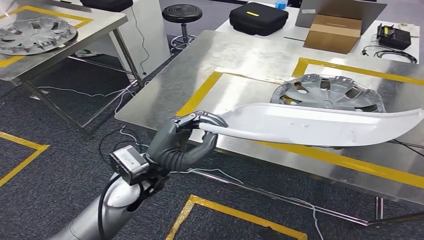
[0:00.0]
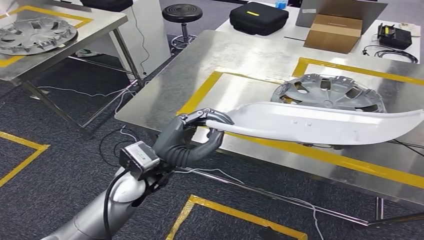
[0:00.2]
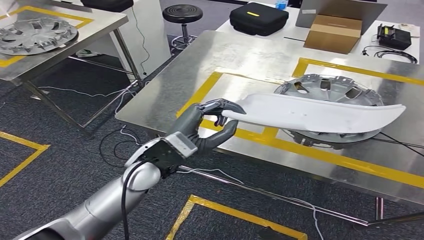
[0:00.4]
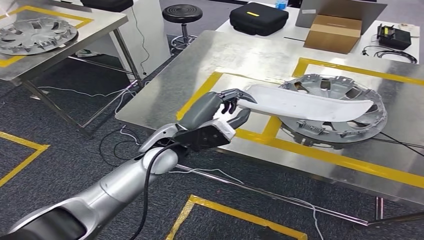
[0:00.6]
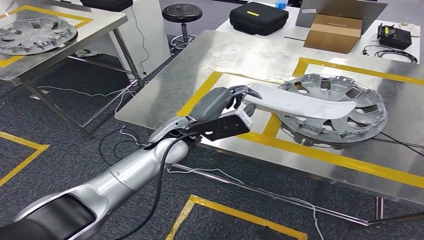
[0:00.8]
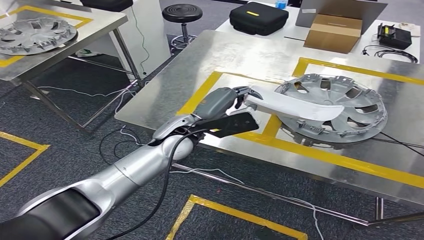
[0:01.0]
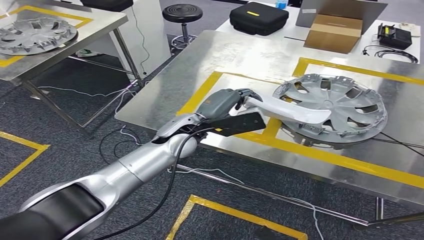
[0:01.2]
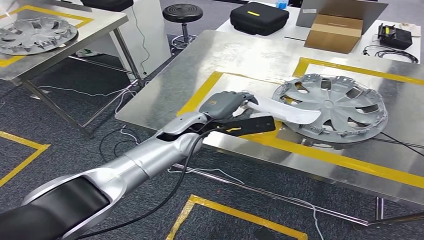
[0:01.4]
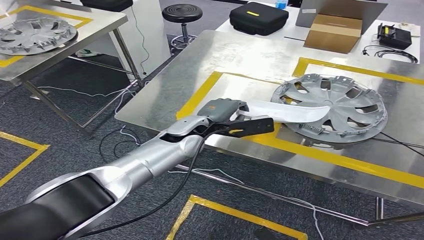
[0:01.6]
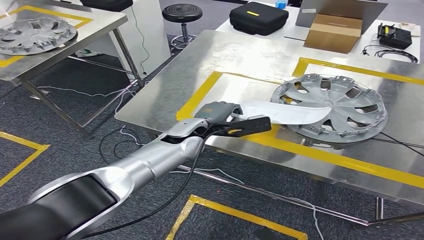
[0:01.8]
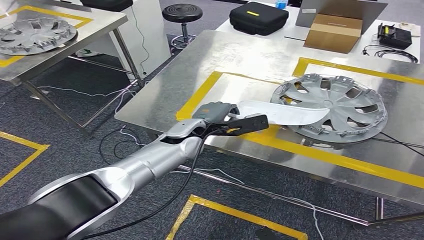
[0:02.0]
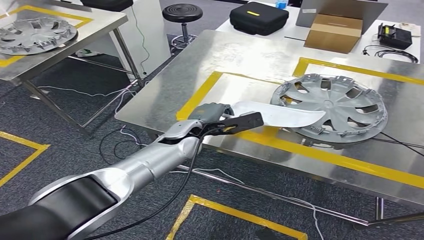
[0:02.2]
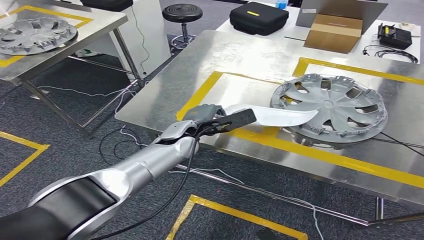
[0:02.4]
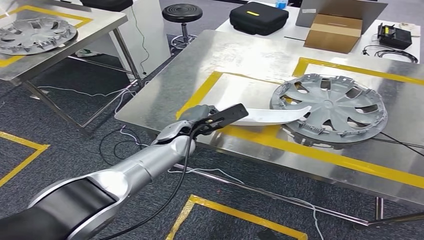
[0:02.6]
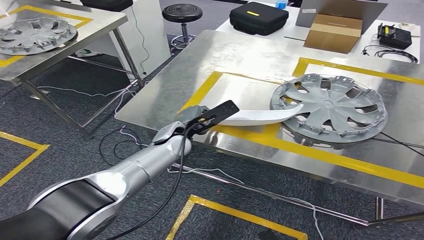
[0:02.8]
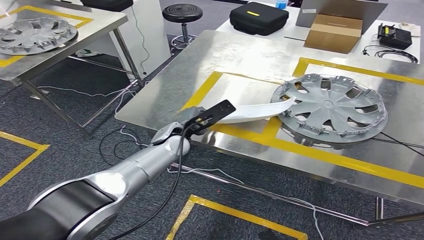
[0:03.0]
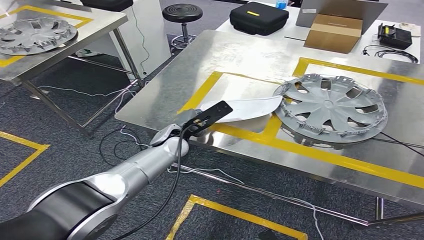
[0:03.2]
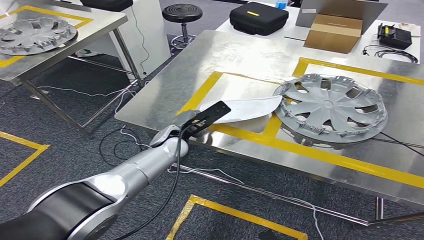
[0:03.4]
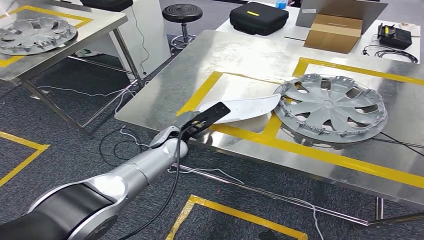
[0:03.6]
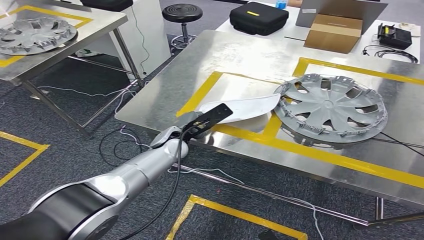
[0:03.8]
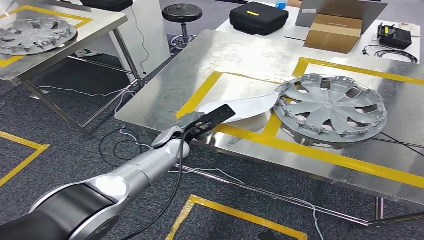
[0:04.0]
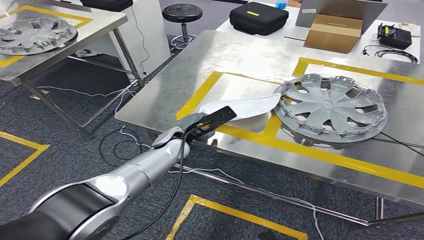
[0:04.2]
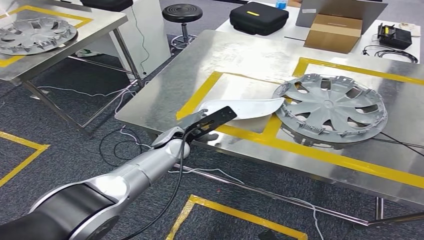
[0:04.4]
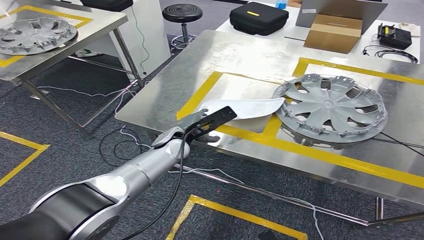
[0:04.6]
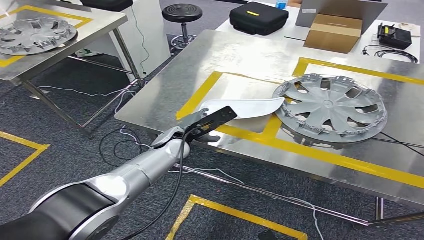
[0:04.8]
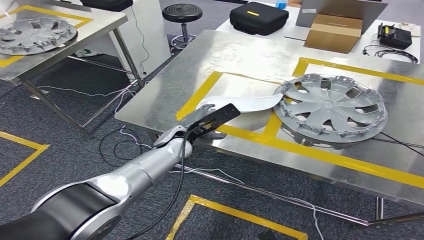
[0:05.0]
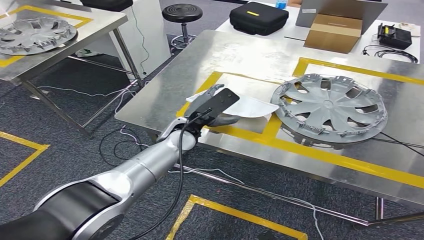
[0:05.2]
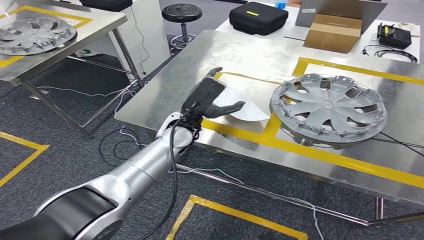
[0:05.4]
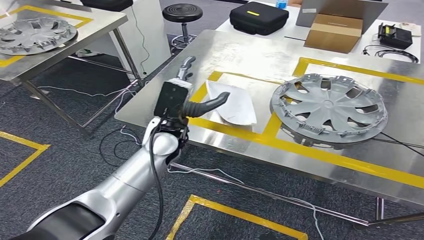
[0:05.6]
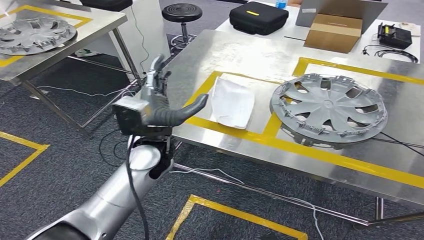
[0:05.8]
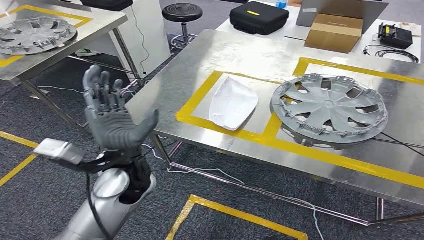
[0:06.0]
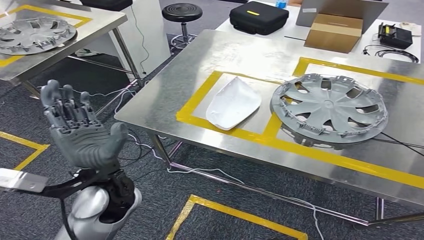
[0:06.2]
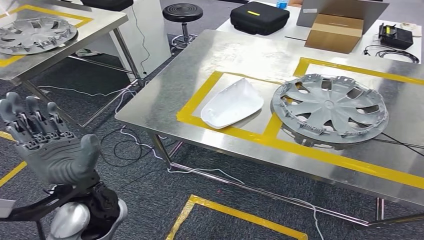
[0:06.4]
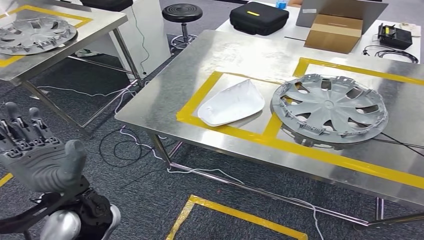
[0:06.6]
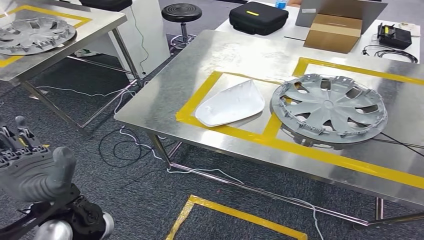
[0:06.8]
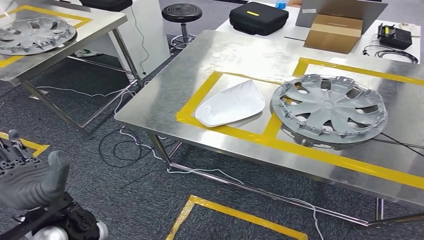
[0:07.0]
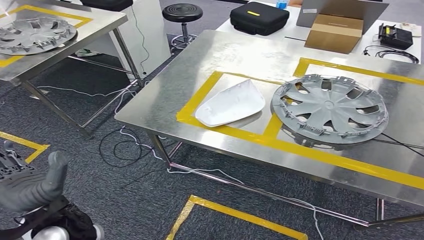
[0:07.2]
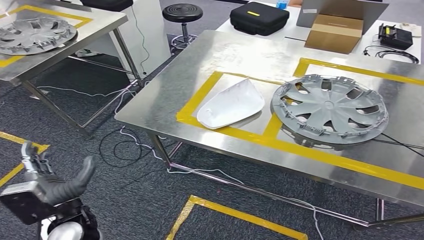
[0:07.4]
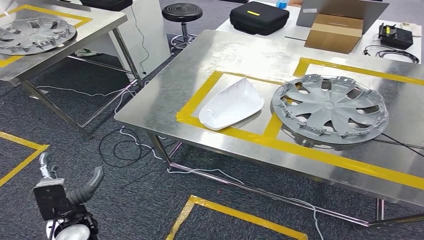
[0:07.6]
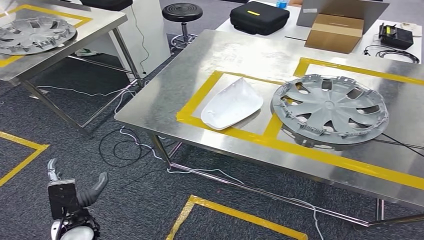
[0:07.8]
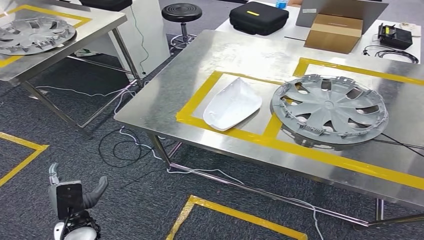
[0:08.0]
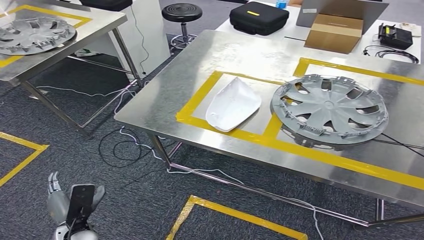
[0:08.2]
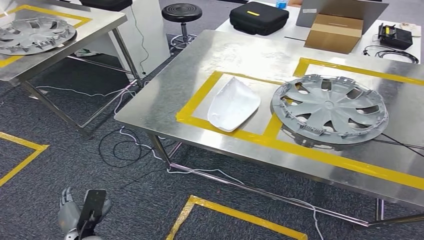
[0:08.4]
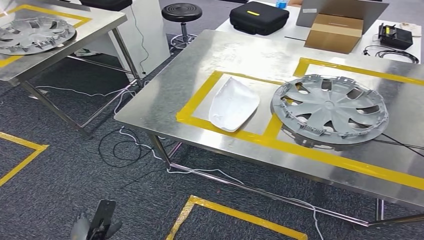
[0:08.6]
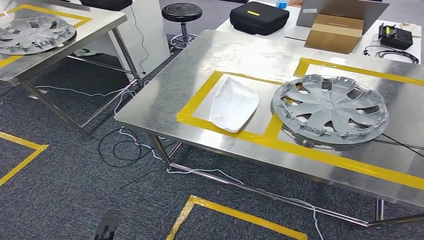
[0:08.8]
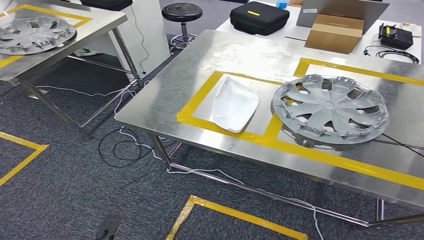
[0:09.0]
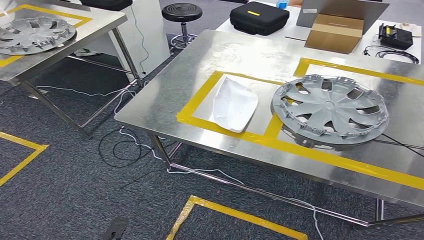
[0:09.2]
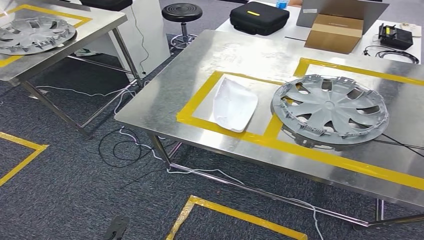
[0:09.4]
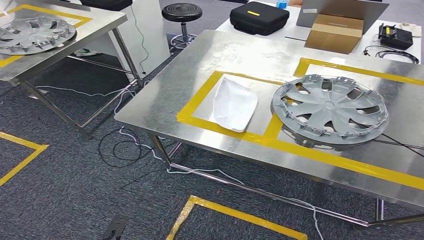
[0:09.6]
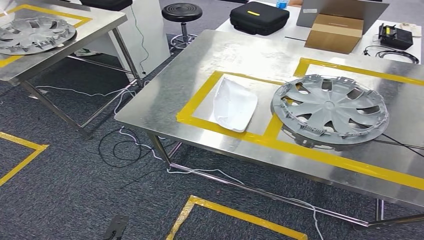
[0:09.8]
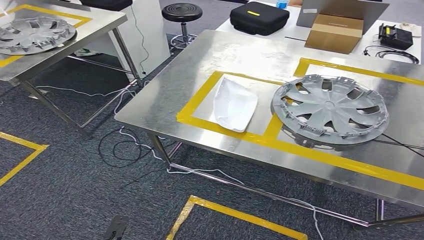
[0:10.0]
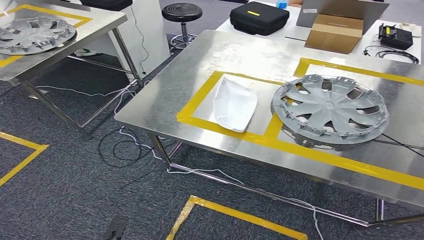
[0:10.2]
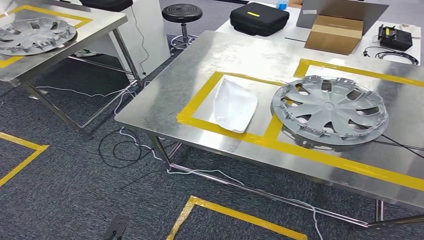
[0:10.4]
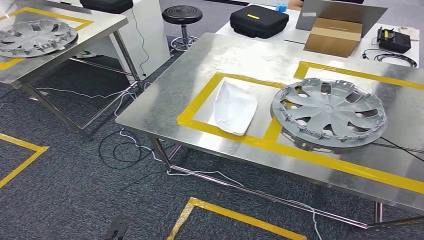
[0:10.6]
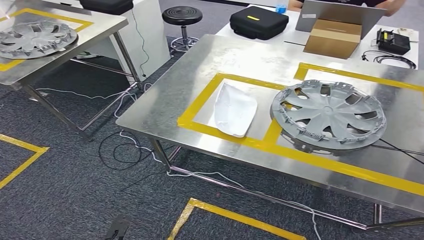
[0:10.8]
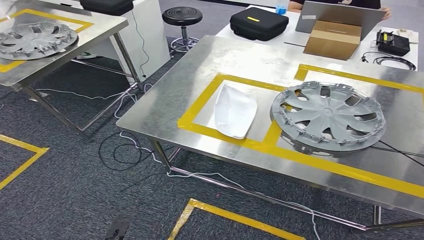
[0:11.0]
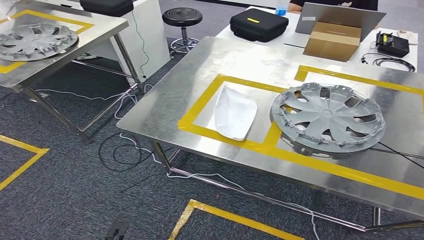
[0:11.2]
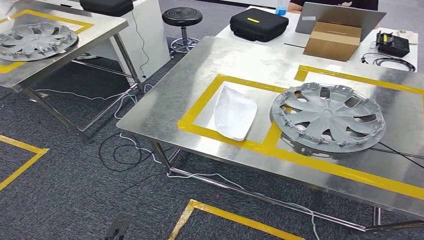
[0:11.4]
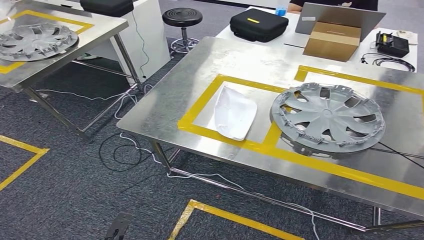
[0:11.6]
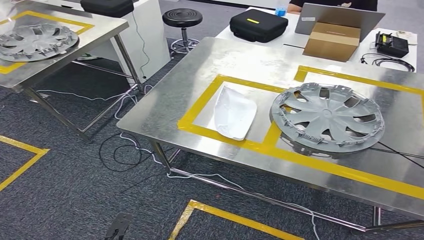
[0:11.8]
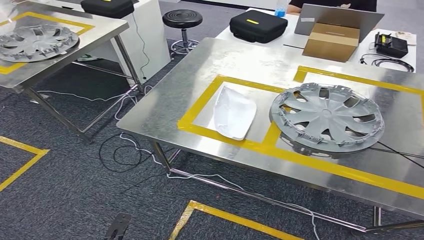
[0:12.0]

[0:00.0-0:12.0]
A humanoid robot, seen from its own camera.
Step, 0:00.0 to 0:06.4: Insert the small parts into the corresponding slots on the workbench.
Step, 0:06.8 to 0:12.0: Return to the initial position at the workbench.
0:00.0 to 0:01.6: The left hand moves forward, about 15 cm.
0:01.6 to 0:03.0: The left hand moves roughly 5 cm.
0:03.0 to 0:04.4: The hands move only a little.
0:04.4 to 0:06.0: The left hand shifts about 15 cm backward and upward.
0:06.0 to 0:07.6: The left hand is displaced backward, downward and to the left by about 25 cm.
0:07.6 to 0:09.0: The left hand heads downward and backward, covering some 20 cm.
0:09.0 to 0:10.4: The hands move only a little.
